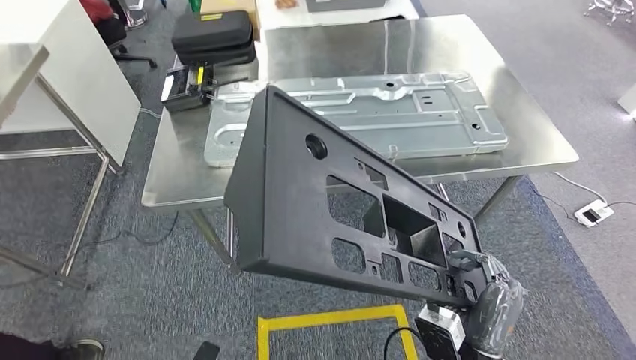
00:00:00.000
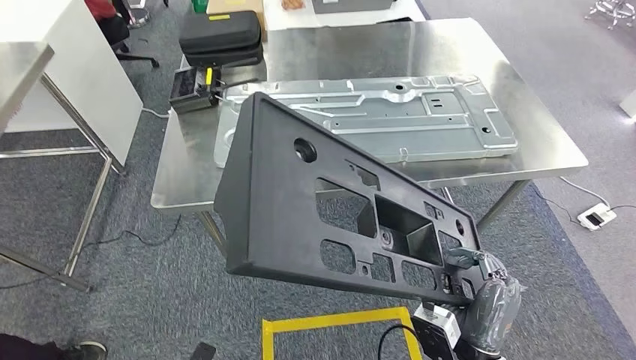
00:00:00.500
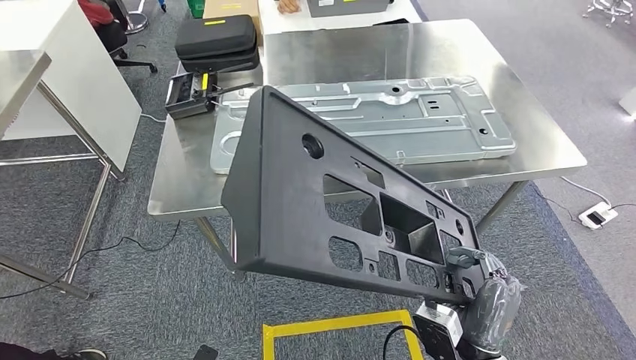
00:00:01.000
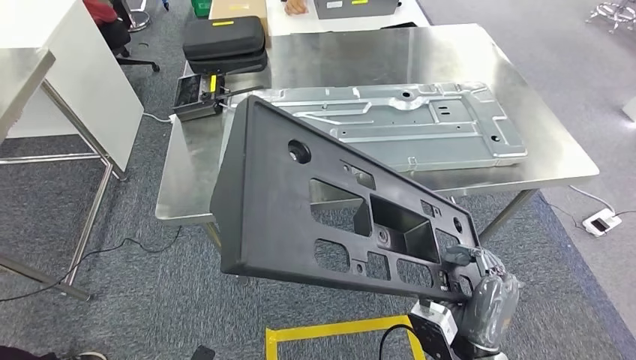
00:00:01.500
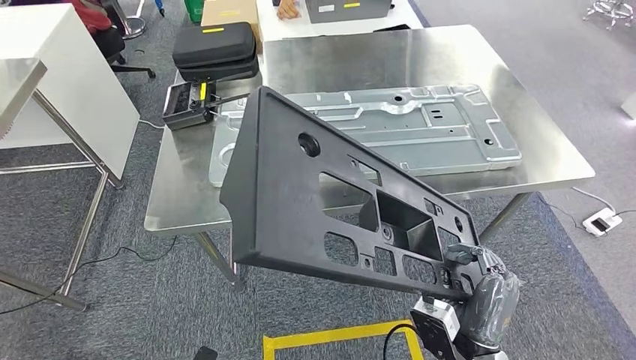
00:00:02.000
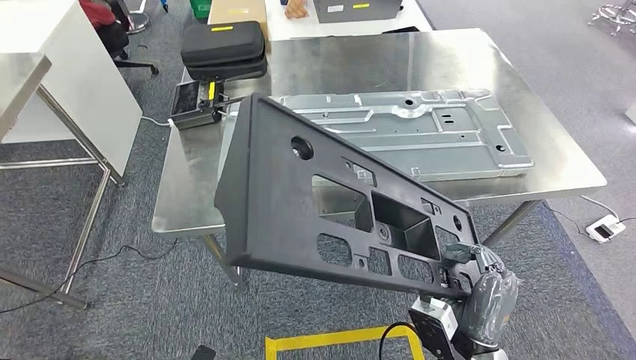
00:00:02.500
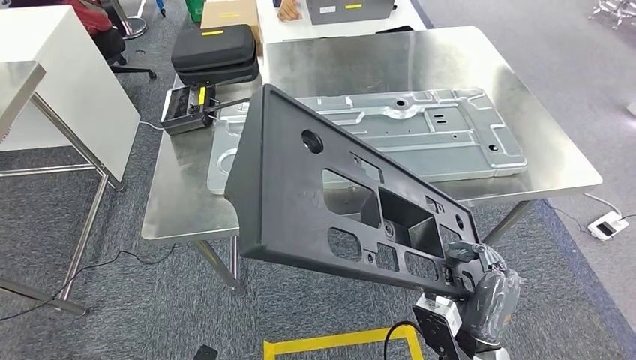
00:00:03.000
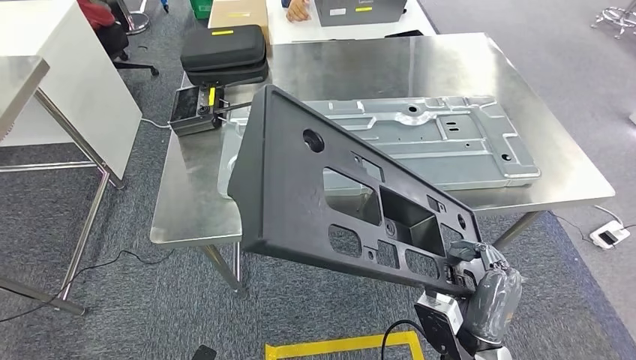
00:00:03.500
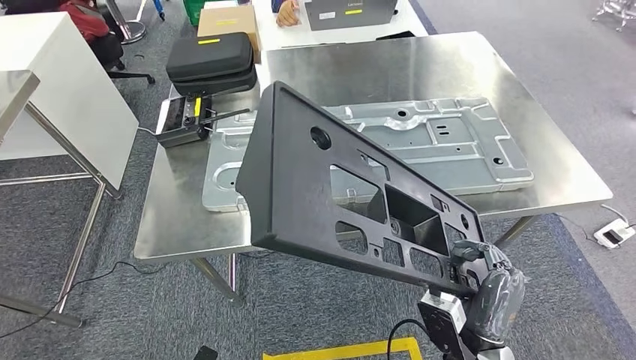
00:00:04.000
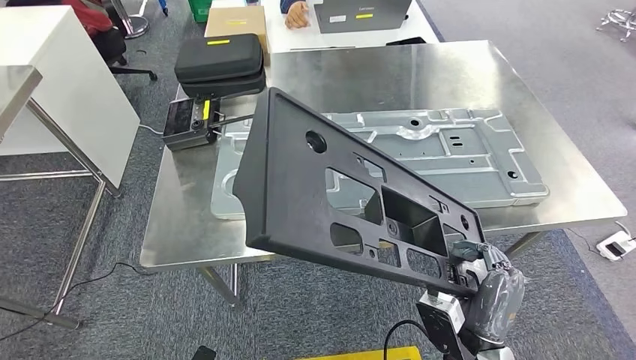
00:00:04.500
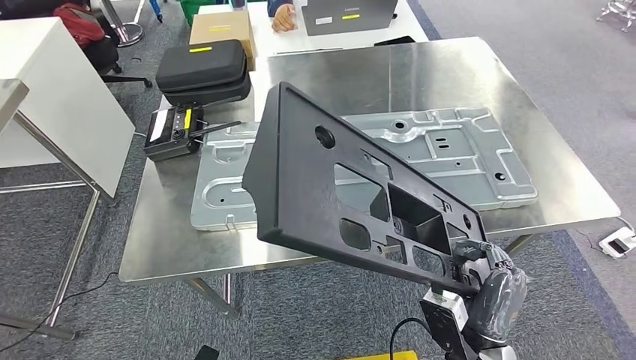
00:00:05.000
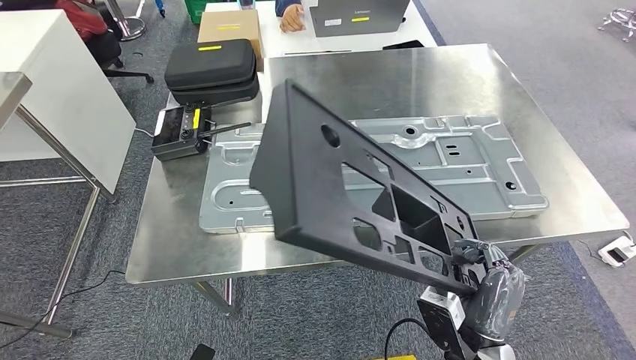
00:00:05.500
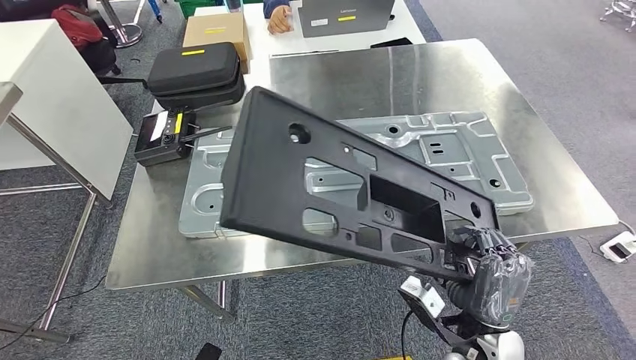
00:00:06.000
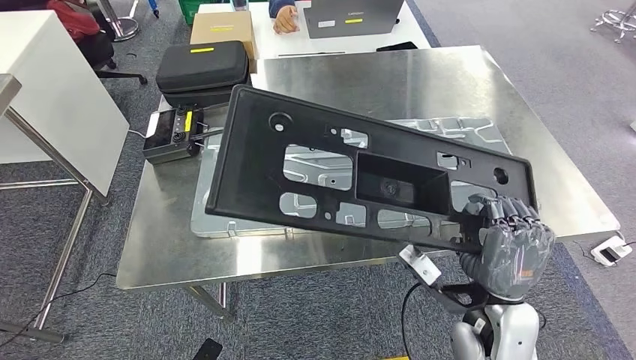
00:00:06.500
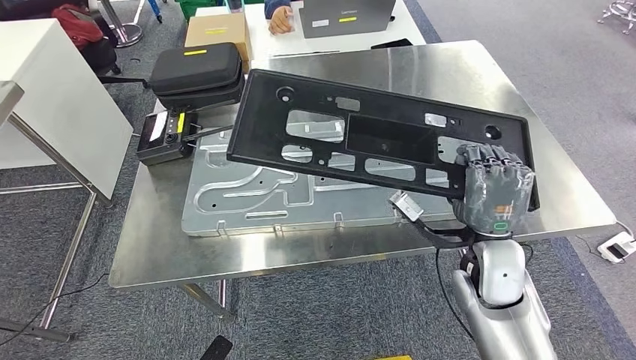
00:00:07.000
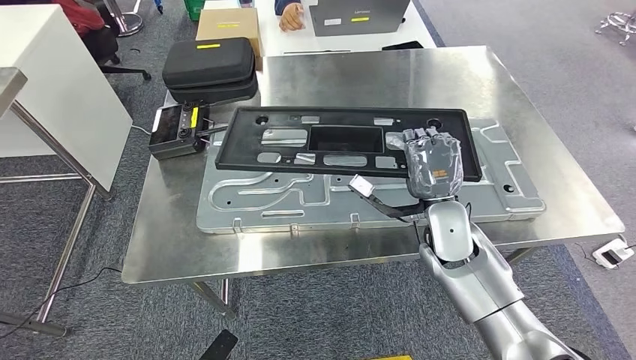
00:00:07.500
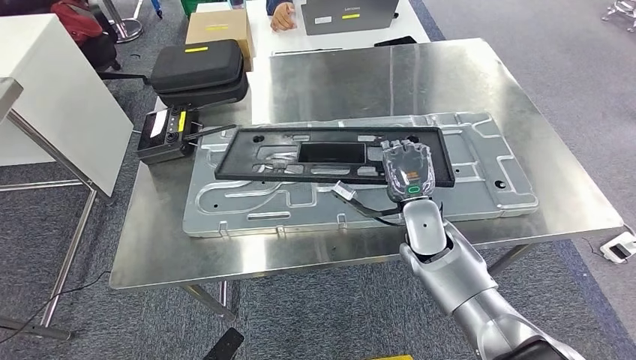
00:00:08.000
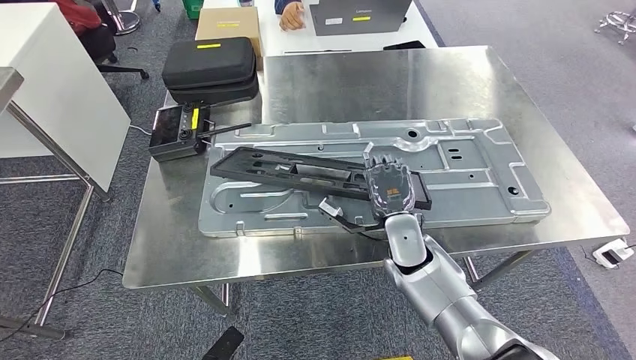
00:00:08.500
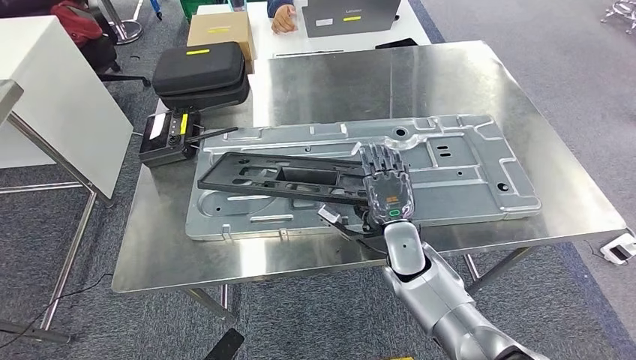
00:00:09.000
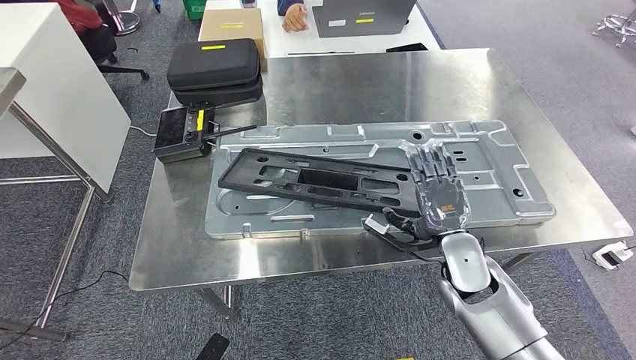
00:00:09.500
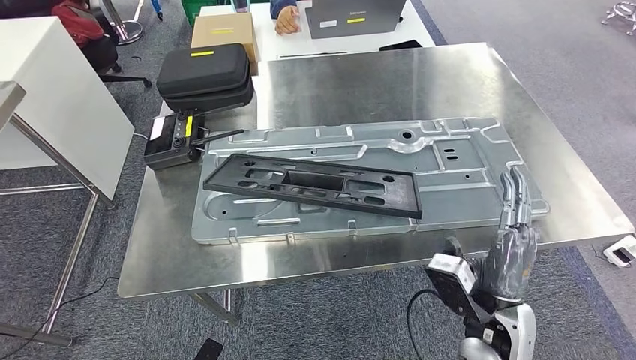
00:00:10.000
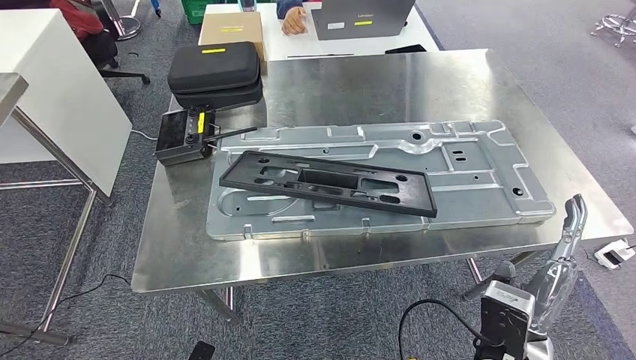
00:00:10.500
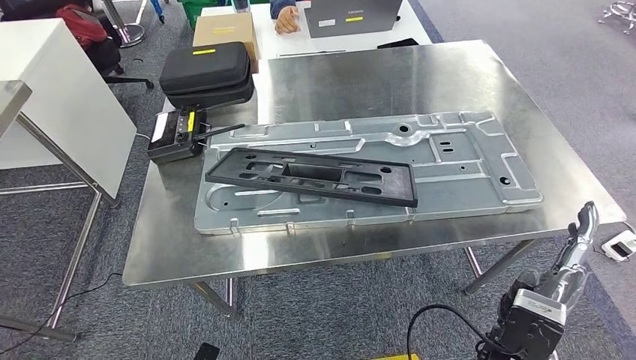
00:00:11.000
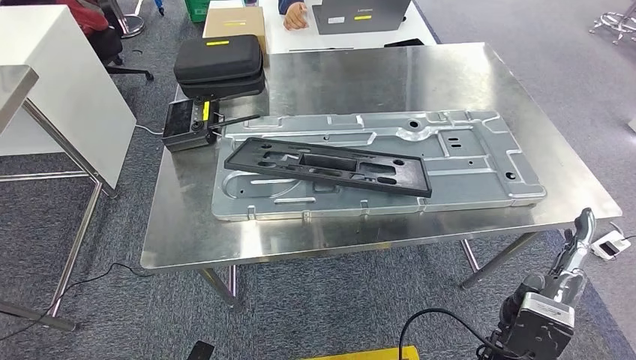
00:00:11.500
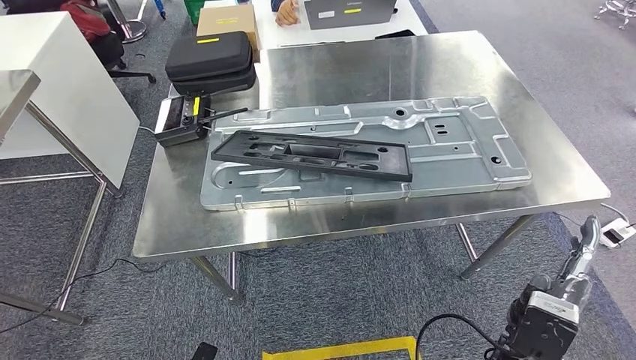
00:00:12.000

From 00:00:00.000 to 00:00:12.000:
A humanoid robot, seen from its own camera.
Step, from 00:00:00.000 to 00:00:03.000: Move the large material to the workbench.
Step, from 00:00:05.000 to 00:00:10.000: Insert the large material into the corresponding slot on the workbench.

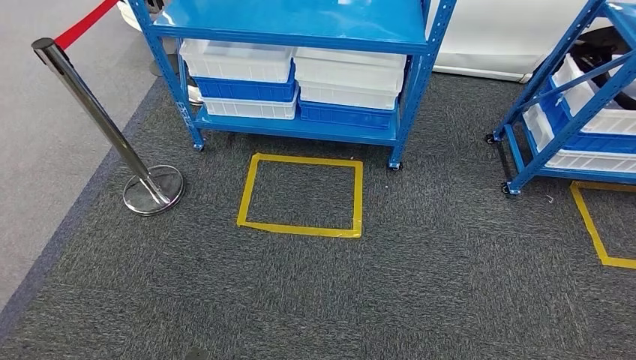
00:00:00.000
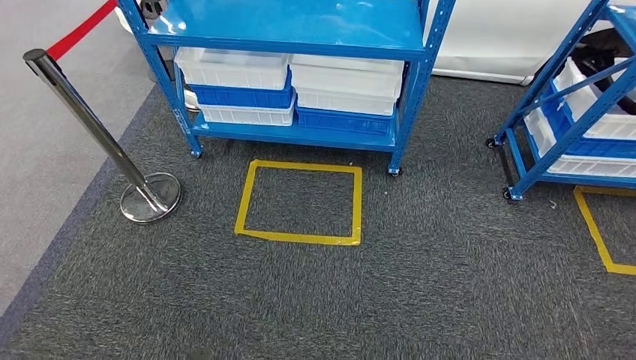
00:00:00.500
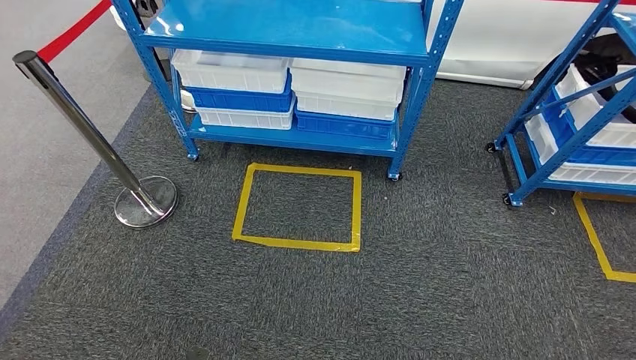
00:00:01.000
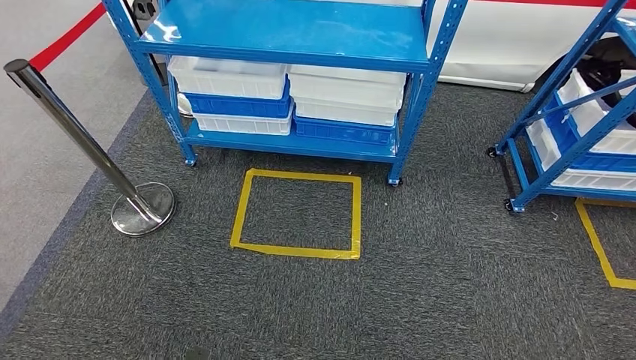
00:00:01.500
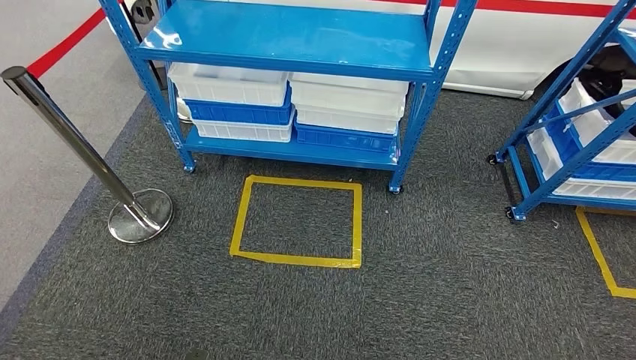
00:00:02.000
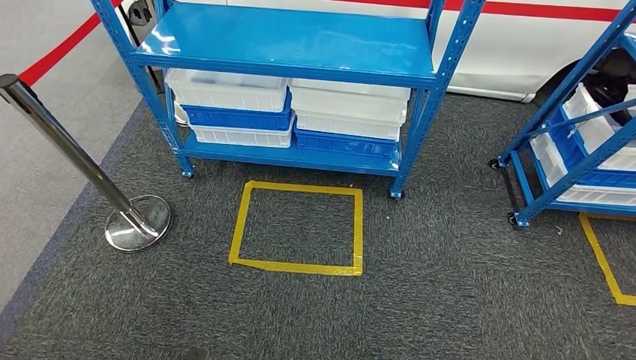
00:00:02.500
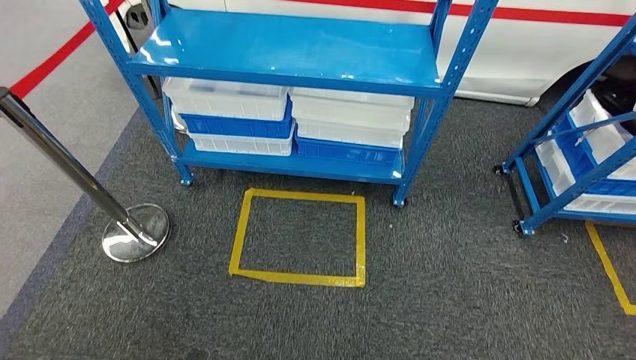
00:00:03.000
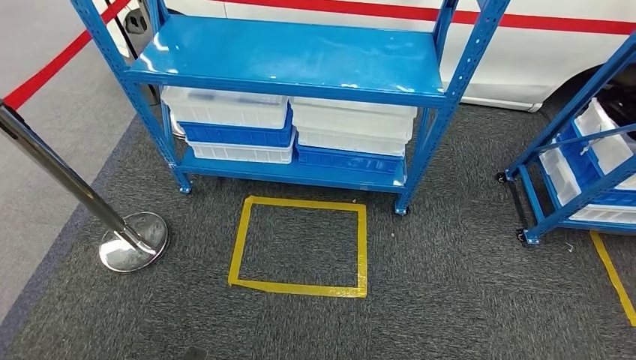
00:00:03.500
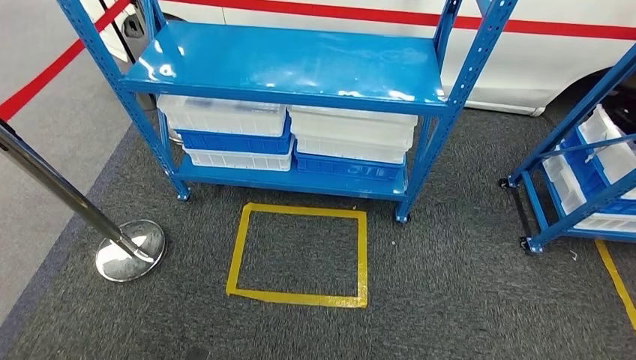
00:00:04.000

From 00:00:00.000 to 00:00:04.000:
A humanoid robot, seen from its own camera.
Step, from 00:00:00.000 to 00:00:04.000: Move to the initial position of the shelf.
